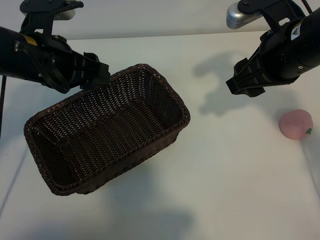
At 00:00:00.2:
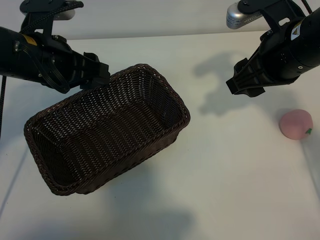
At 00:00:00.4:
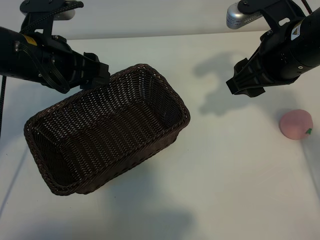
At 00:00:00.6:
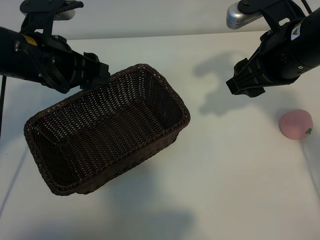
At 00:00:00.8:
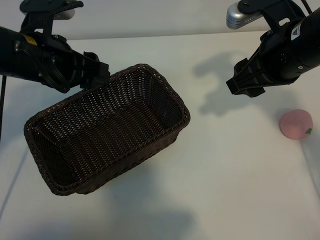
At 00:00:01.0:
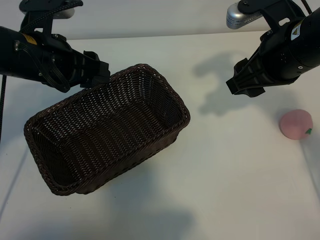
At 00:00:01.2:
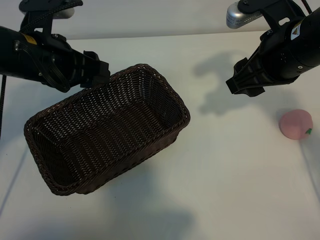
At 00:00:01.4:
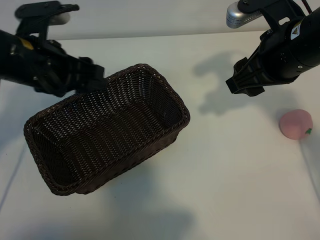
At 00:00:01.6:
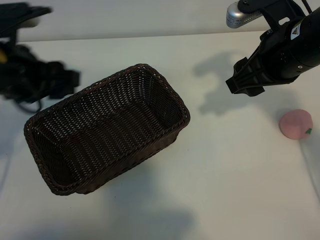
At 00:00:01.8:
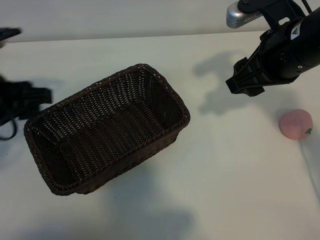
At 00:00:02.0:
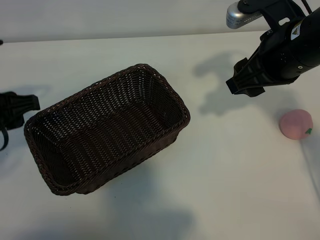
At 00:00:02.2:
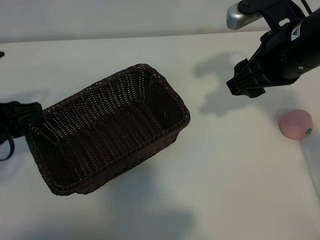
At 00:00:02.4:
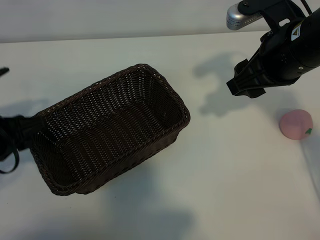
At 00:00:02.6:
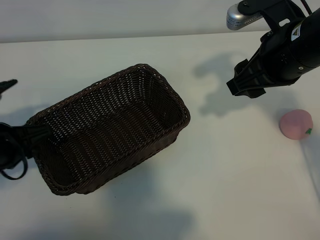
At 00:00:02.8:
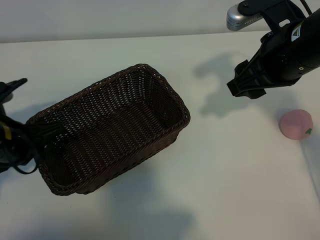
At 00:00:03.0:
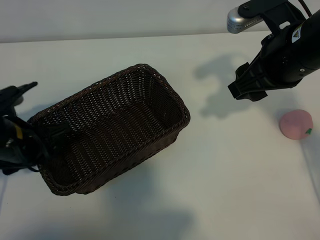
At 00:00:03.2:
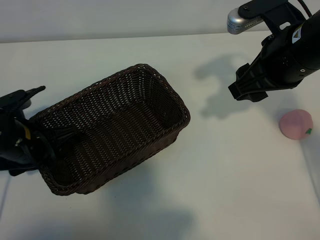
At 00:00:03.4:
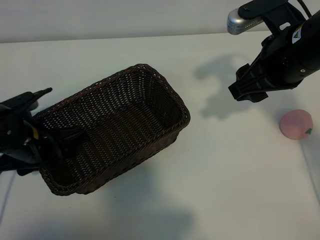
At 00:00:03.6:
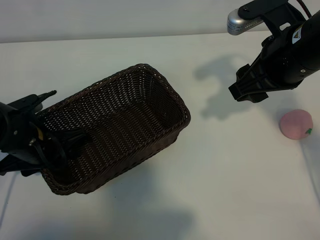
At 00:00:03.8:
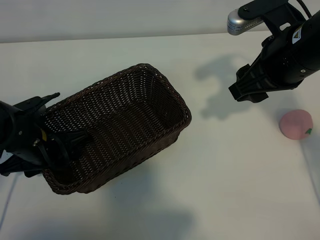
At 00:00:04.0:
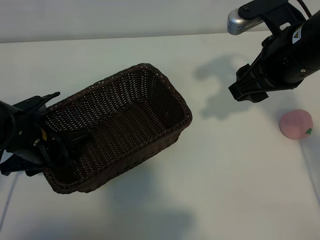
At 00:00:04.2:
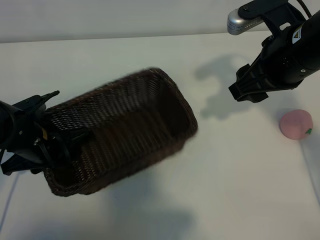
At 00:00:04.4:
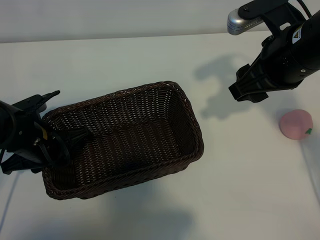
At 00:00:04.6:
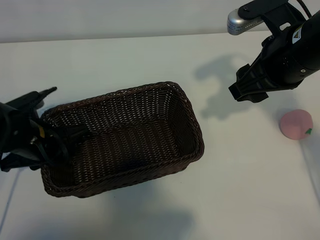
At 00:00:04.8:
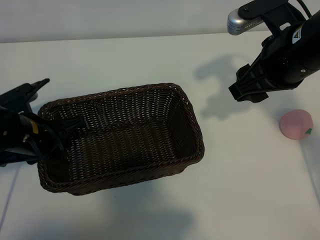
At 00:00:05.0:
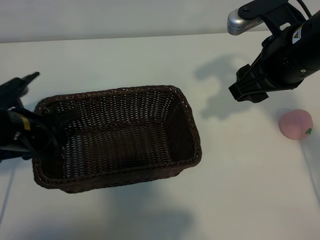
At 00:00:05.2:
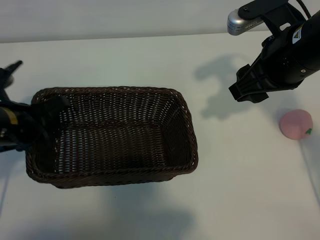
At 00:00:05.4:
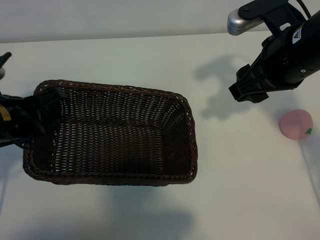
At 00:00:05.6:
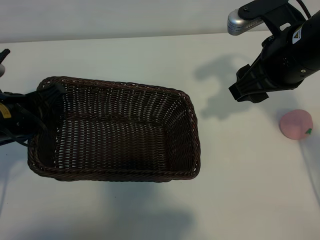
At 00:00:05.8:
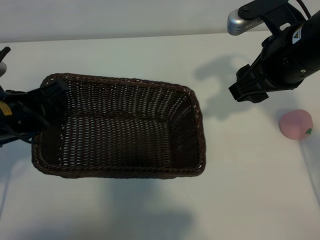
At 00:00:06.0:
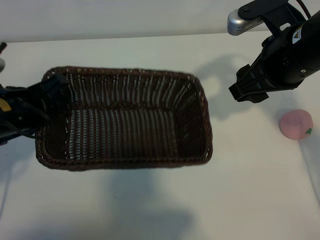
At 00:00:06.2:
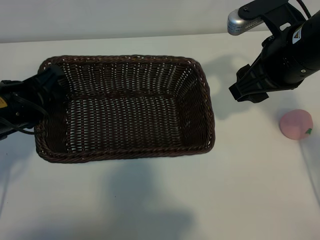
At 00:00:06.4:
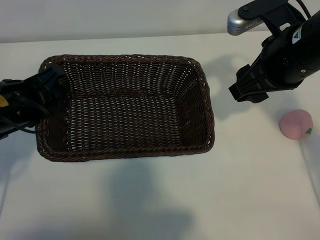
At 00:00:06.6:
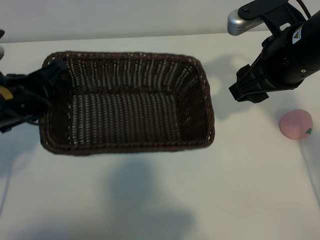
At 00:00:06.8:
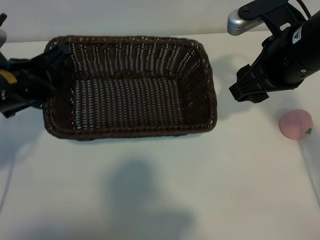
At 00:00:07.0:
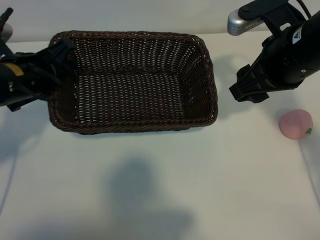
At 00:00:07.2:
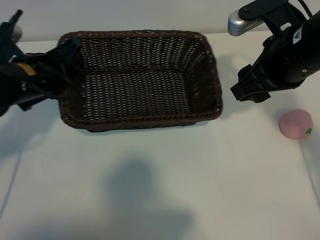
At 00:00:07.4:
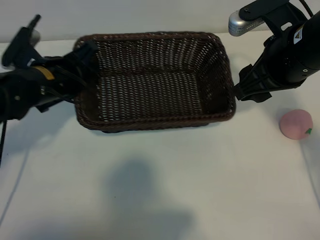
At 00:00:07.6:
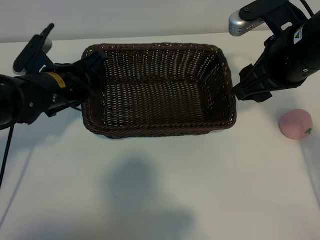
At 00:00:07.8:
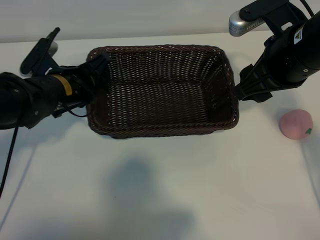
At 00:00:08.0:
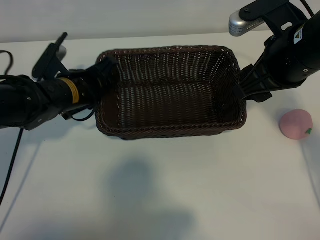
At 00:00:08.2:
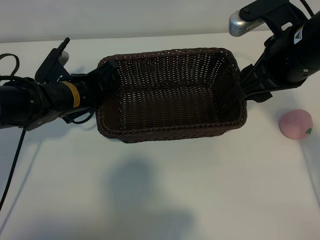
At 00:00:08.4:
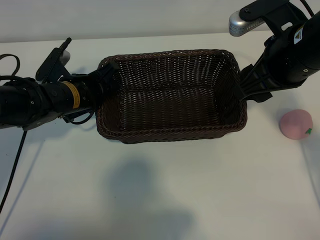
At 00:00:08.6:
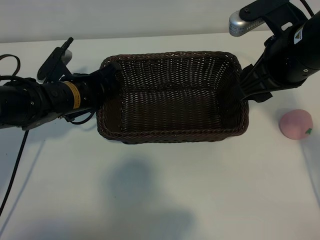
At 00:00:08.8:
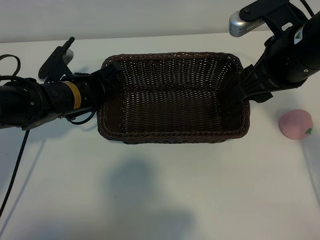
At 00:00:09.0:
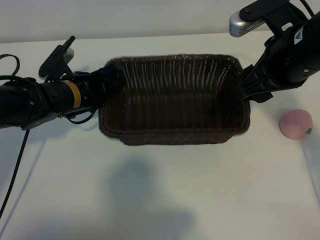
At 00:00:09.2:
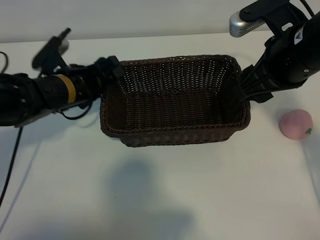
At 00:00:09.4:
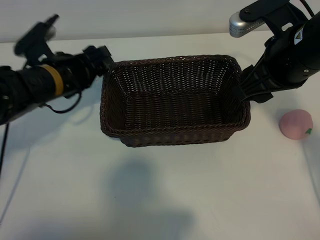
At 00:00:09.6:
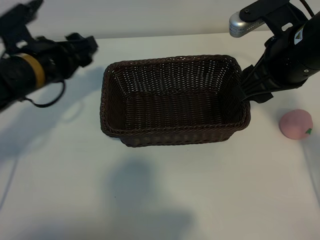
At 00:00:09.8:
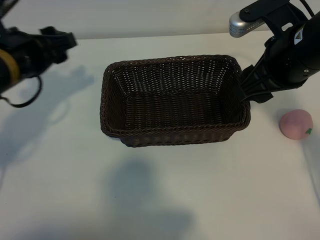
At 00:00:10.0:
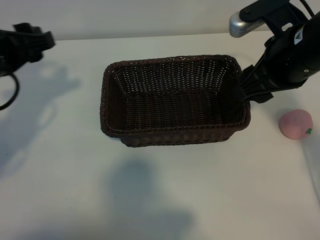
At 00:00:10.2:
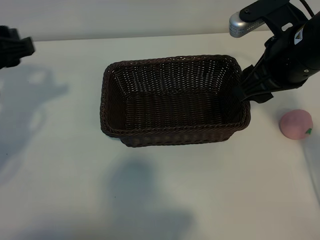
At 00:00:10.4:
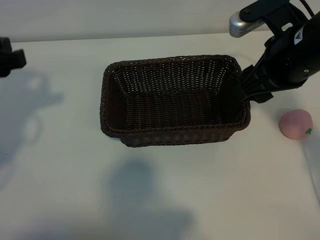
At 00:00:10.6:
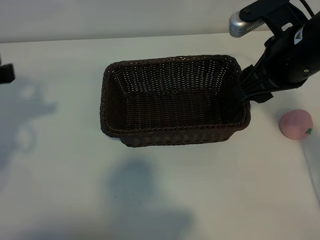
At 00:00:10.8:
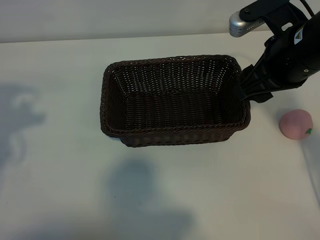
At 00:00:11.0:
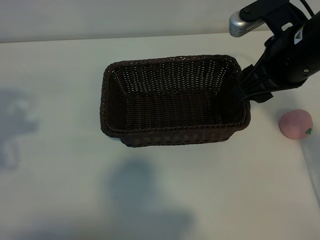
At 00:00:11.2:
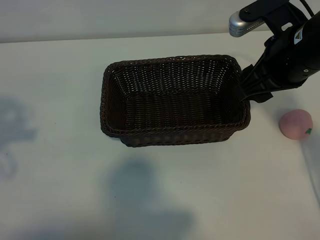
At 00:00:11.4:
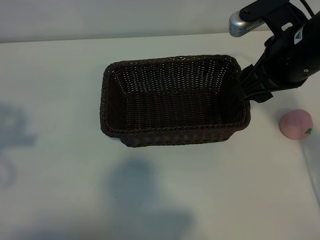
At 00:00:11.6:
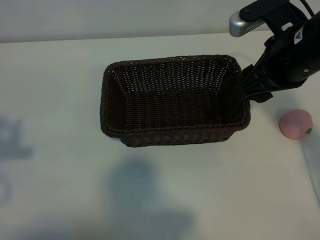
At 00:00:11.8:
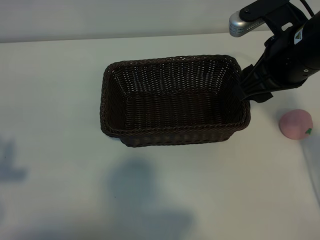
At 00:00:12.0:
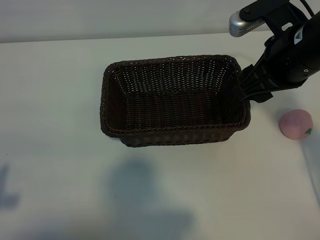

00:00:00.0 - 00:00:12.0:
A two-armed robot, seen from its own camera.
Task of the whole recording: pick up the peach and put it into the basket.
Step, 00:00:01.2 - 00:00:04.2: Grasp the basket with left gripper.
Step, 00:00:04.4 - 00:00:09.2: Place the basket in the center of view with left gripper.

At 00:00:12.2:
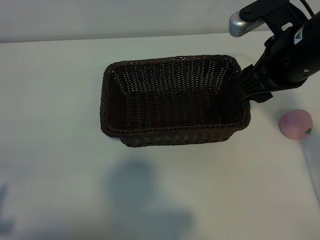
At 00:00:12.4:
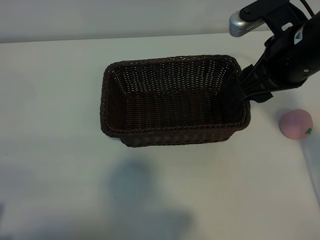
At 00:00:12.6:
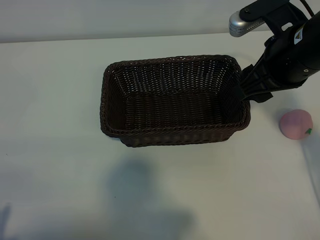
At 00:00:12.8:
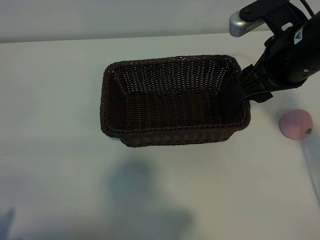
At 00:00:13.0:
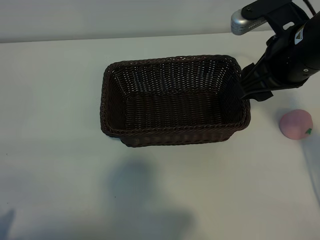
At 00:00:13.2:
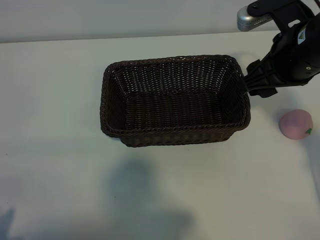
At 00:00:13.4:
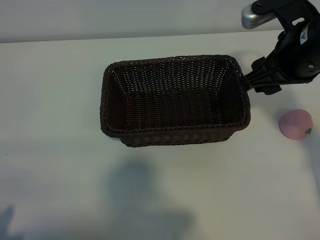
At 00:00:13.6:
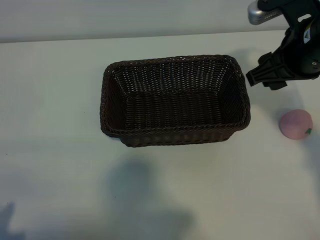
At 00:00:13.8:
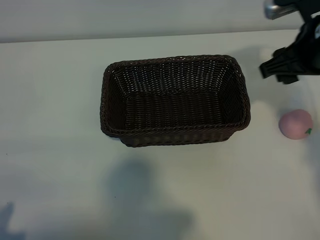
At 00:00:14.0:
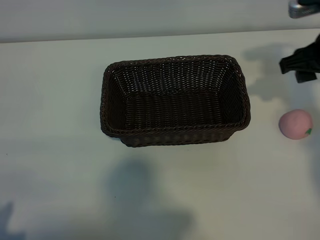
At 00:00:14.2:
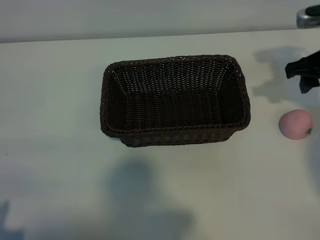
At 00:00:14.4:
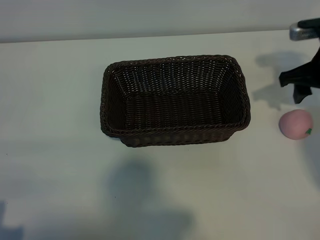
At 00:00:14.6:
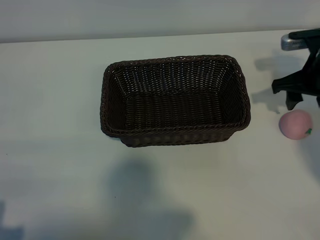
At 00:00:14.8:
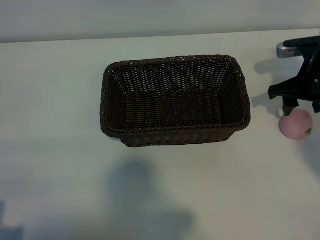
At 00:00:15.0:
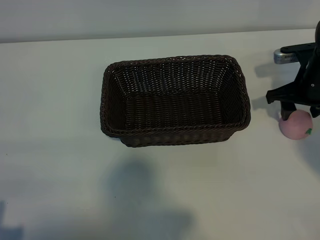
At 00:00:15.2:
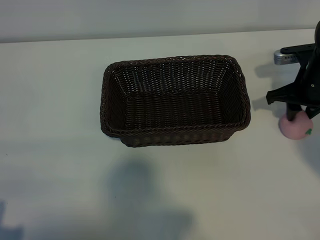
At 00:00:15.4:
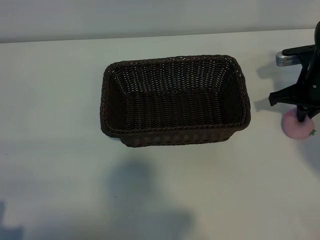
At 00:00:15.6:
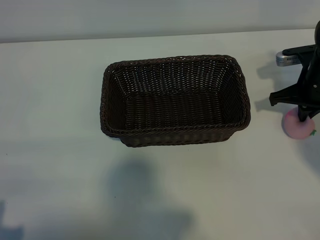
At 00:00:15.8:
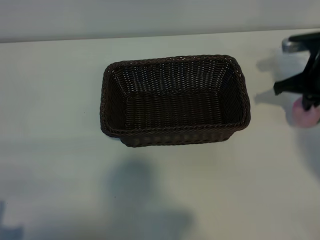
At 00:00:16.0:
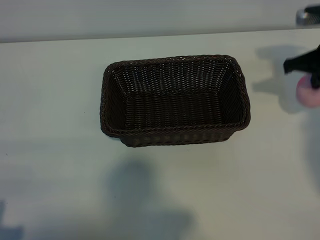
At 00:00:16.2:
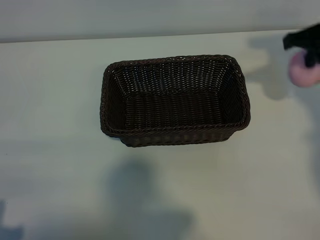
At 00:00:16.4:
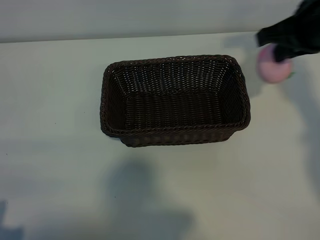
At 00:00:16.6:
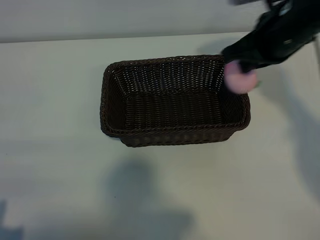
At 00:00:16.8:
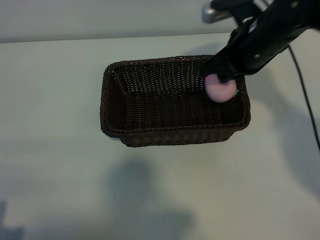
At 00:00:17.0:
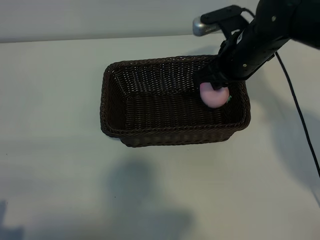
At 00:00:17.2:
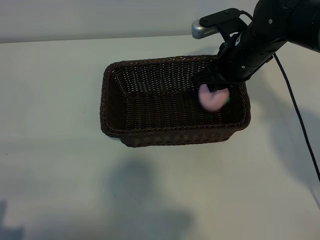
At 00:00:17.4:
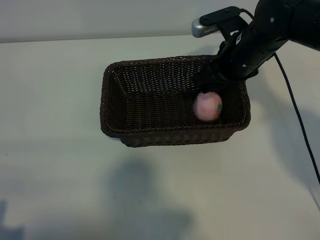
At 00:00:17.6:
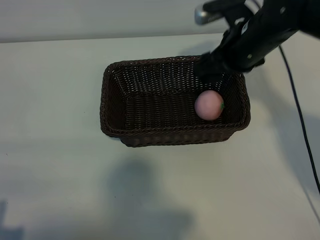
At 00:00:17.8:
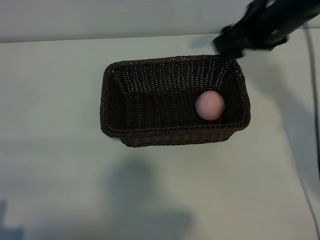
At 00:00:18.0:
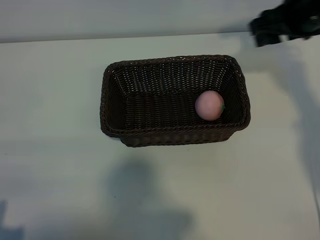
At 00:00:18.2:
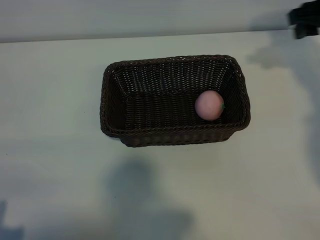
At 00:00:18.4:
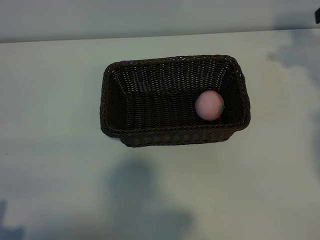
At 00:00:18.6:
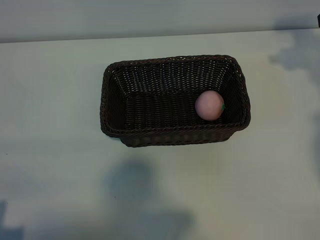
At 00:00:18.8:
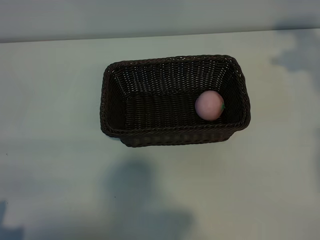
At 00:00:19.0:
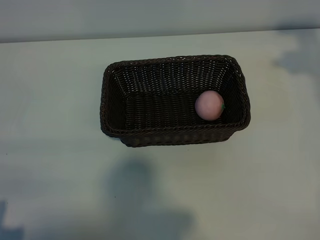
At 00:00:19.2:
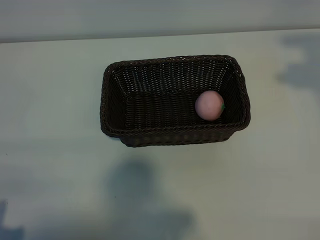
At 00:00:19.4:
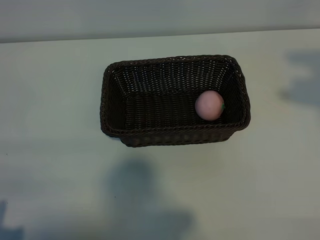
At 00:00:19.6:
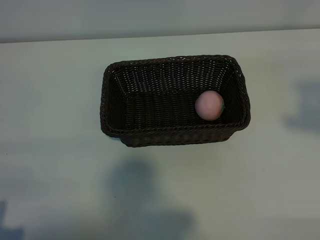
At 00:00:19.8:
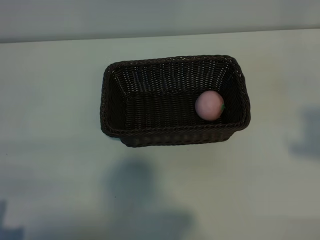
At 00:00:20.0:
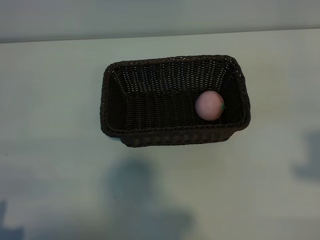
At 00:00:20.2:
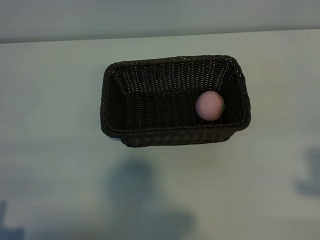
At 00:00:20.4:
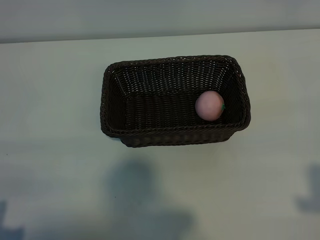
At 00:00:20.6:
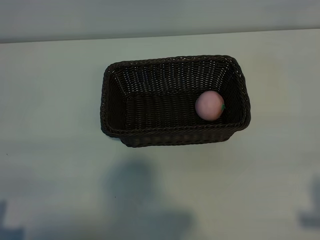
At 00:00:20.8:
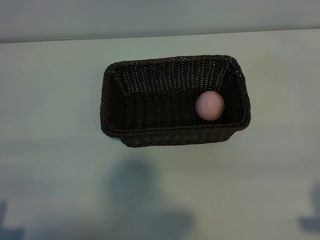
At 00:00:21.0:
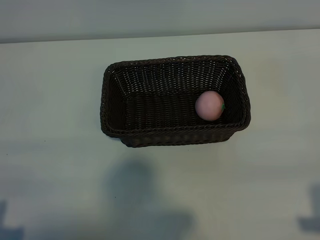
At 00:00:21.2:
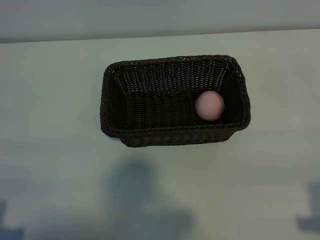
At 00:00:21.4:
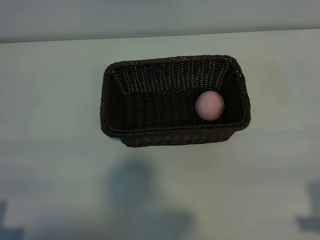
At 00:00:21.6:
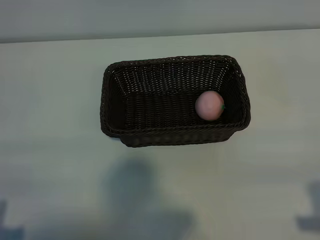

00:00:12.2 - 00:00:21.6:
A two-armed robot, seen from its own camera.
Task of the whole recording: pick up the peach and put it into the basket.
Step, 00:00:12.2 - 00:00:15.4: Grasp the peach with right gripper.
Step, 00:00:15.8 - 00:00:17.4: Place the peach in the basket with right gripper.
